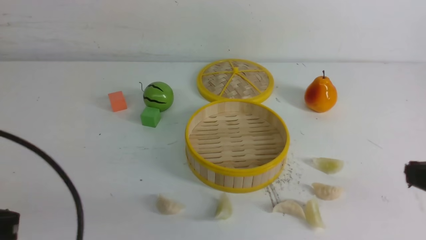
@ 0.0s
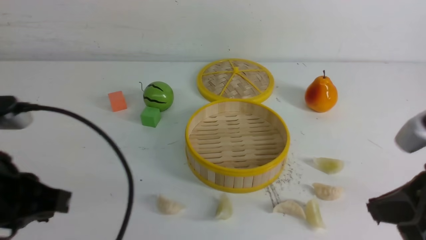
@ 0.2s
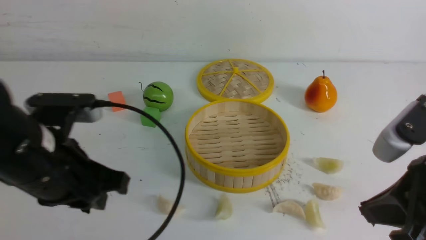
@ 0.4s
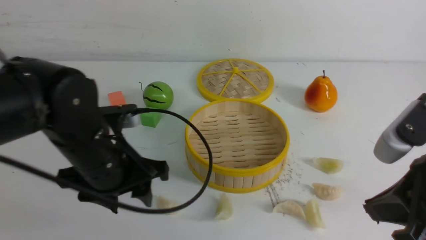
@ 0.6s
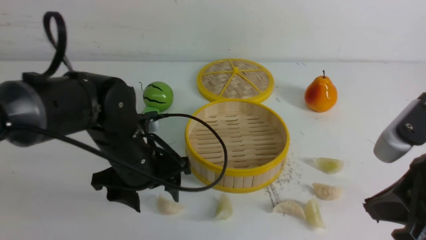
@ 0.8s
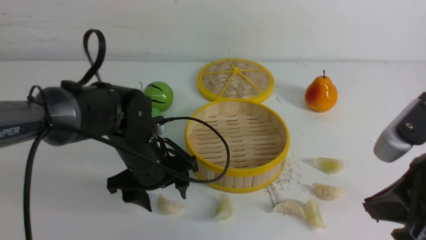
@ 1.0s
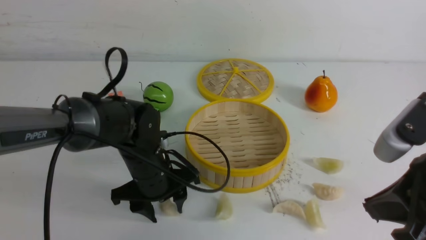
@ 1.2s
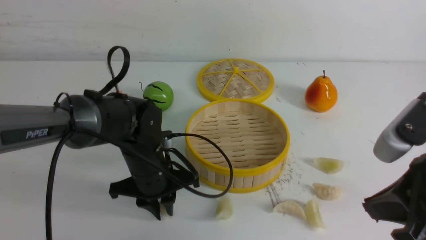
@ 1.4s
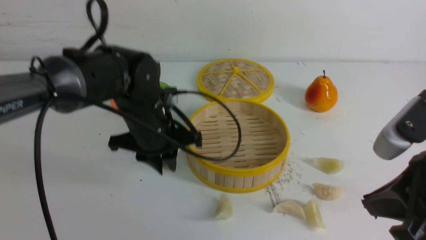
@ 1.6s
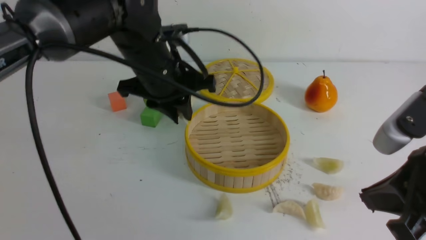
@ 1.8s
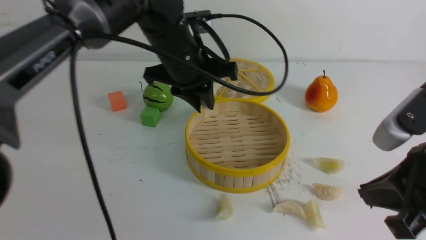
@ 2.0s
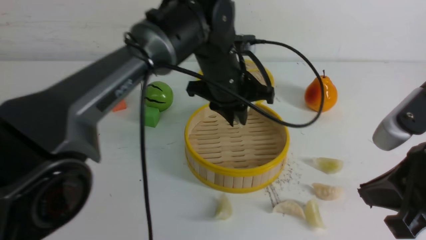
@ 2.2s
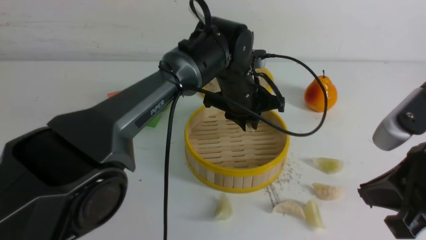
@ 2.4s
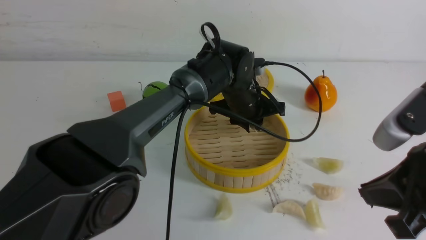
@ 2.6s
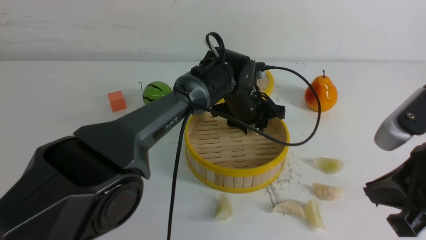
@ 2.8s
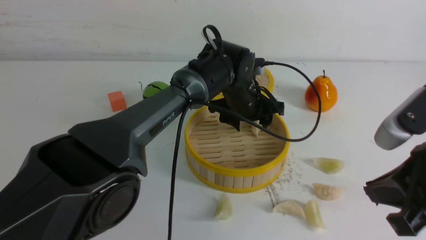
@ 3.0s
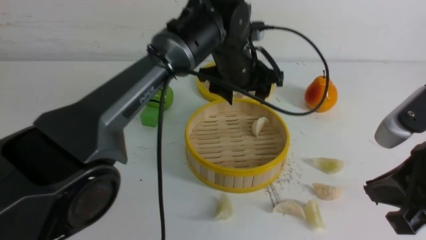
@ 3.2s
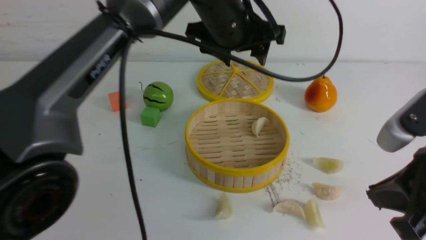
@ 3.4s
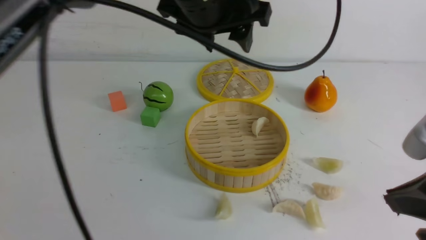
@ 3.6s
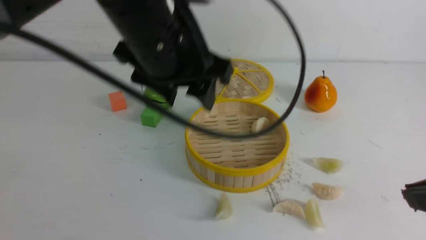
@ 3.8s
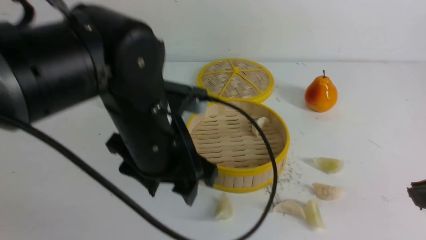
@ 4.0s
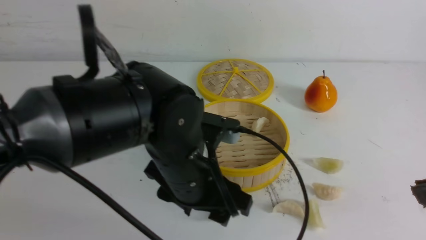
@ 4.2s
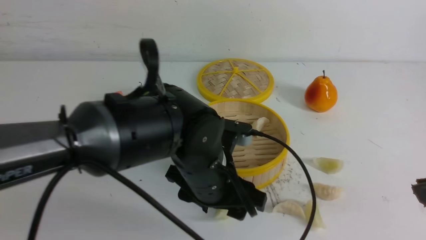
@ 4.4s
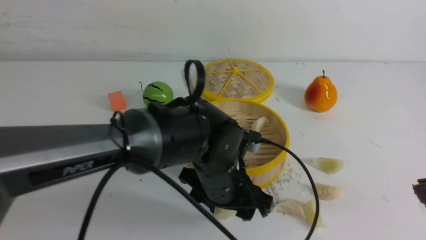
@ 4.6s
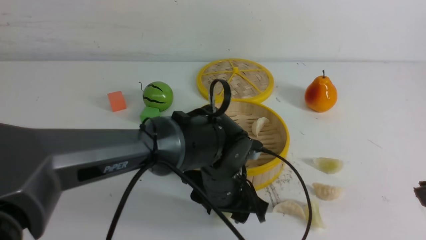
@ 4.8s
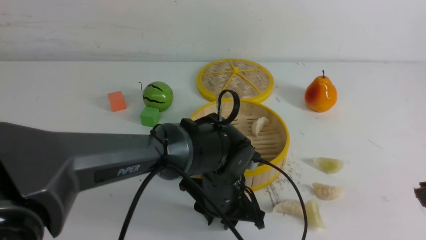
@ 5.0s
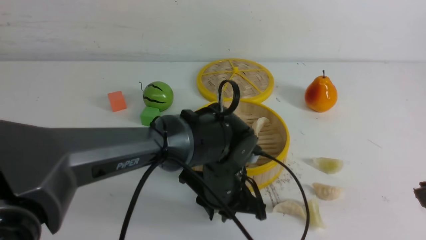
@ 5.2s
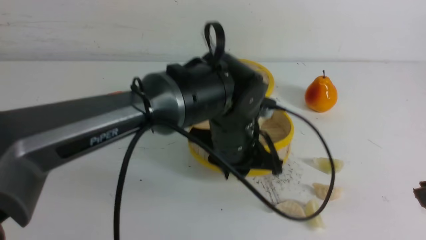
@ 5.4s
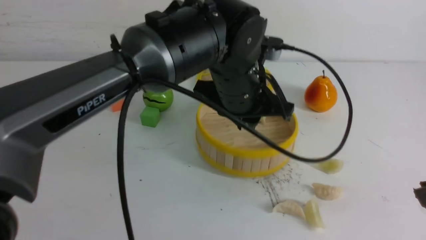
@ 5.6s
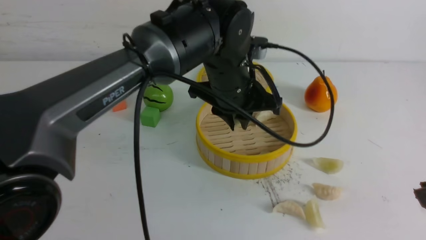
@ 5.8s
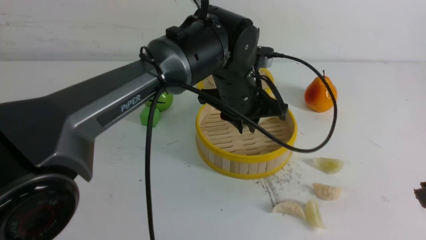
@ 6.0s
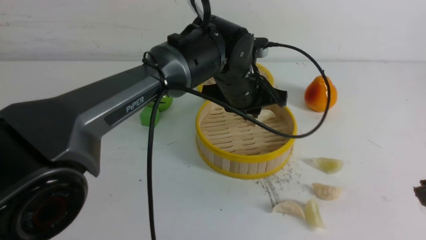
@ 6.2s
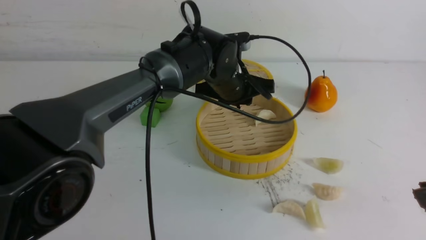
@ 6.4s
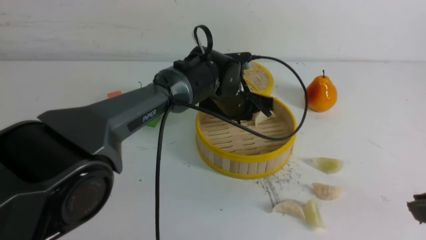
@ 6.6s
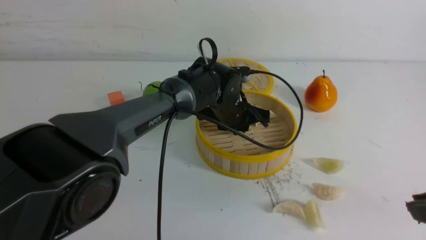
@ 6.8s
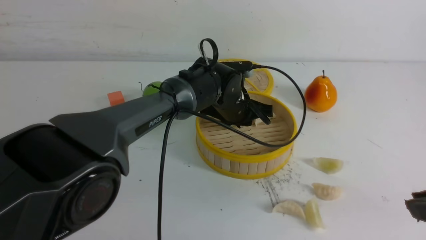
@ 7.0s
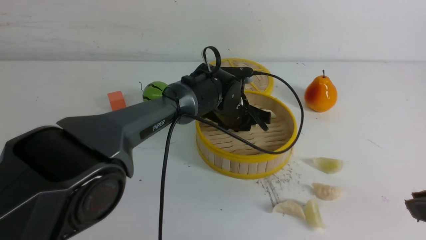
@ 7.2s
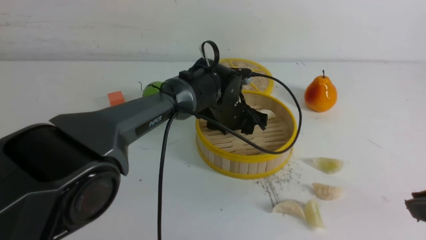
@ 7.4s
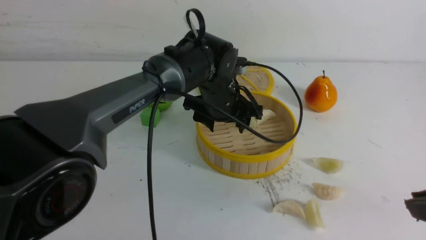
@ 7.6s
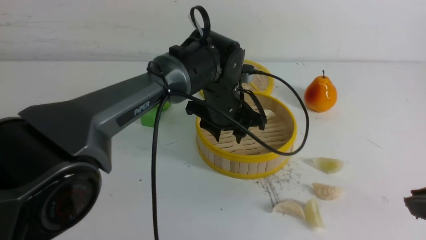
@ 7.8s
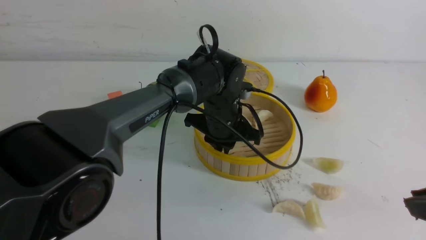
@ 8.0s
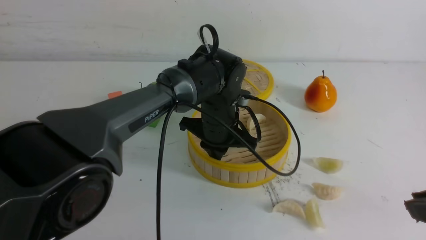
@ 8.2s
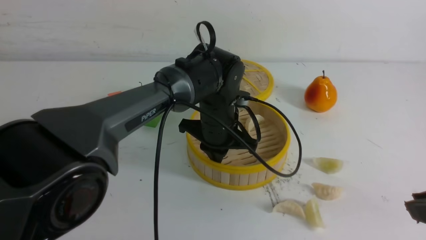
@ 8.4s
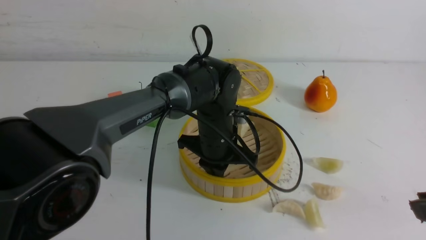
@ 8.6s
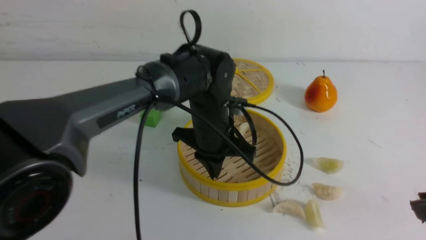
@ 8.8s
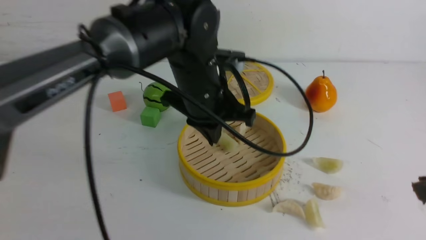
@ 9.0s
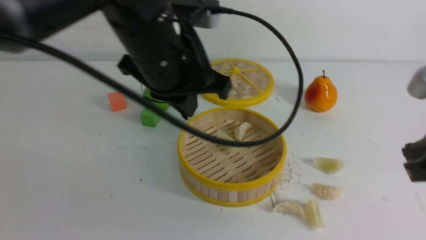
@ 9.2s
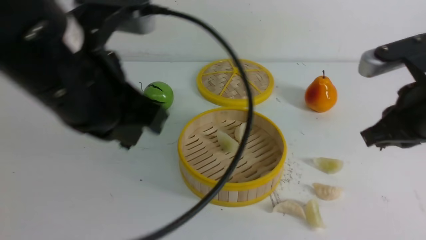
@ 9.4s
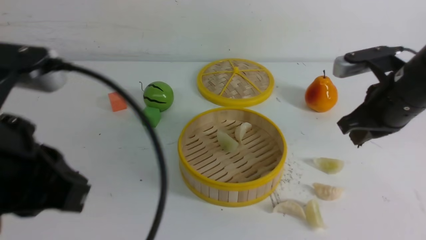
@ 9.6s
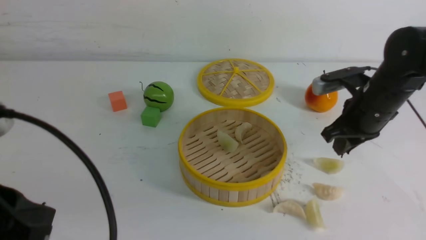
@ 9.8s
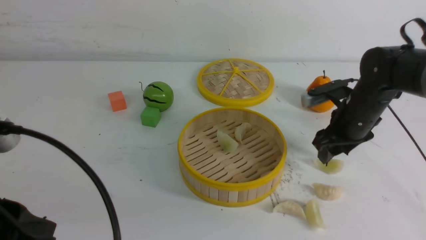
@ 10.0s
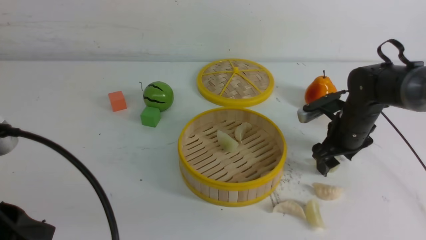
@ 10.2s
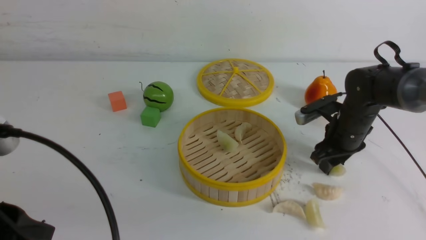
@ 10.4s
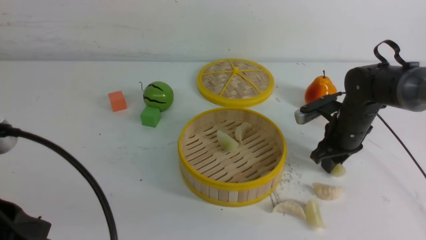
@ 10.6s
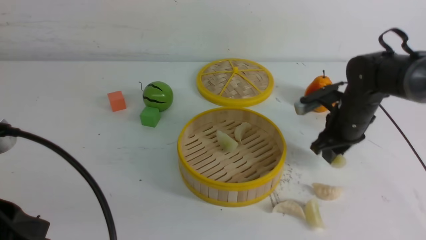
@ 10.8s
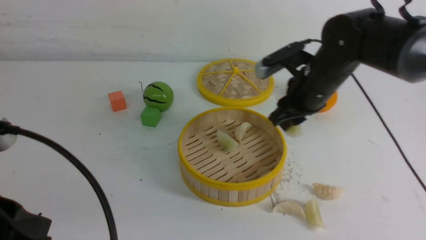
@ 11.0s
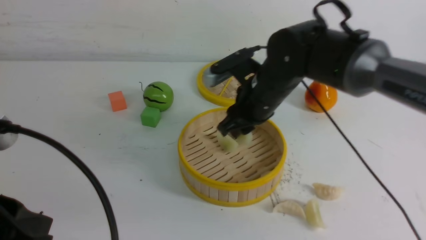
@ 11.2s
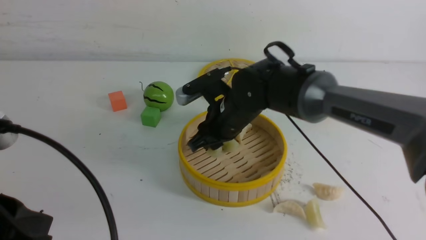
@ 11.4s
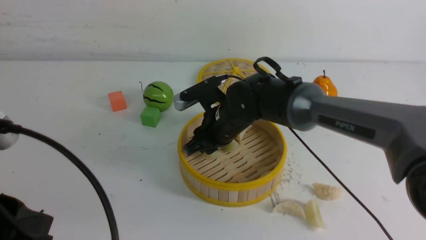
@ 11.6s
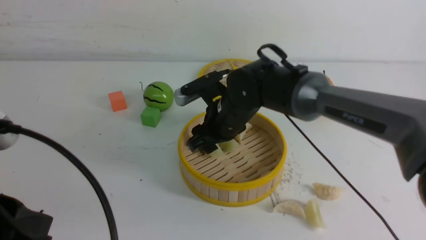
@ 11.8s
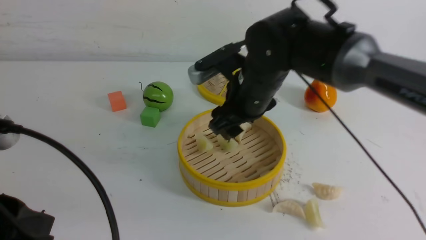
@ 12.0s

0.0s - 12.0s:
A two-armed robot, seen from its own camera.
Task of the whole recording: put the dumplings into the steamer on the white table.
Step, 1.6s - 2.8s: use the left arm to put the dumpling into the steamer.
Step, 3.0s - 5.0s: use the left arm to grab a dumpling.
Step, 5.2s - 7.4s: use the left arm to put the dumpling into the steamer.
Step, 7.8s - 10.6s: use the right arm to grab a dumpling.
Step, 10.8s - 11.8s: use the right arm to put the dumpling into the steamer.
0.0s - 1.6s: The left gripper shifts roughly 30 cm forward and to the right, and opens, then closes again.
1.6s - 3.0s: The left gripper shifts about 15 cm to the right and forward, and opens up.
3.0s - 4.4s: The left gripper heads backward, covering about 20 cm. The right gripper changes place by roughly 5 cm.
4.4s - 6.0s: The left gripper travels forward and upward by some 15 cm, and closes its fingers.
6.0s - 7.6s: The left gripper moves downward, some 5 cm, and opens up.
7.6s - 9.0s: The left gripper moves upward and backward, roughly 15 cm, and closes its fingers.
9.0s - 10.4s: The right gripper travels forward and downward by roughly 35 cm, and opens. Meanwhile the left gripper goes about 30 cm backward and to the left.
10.4s - 12.0s: The right gripper moves to the left and upward, some 20 cm.

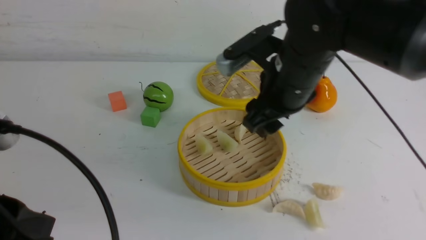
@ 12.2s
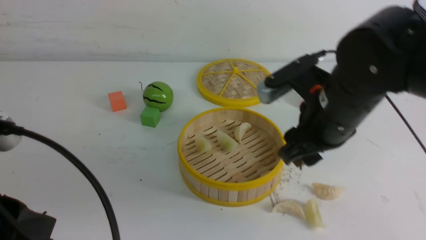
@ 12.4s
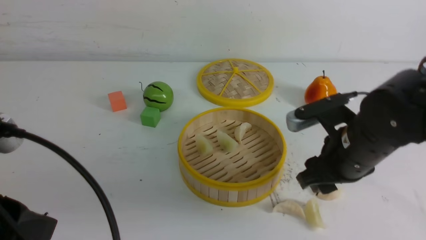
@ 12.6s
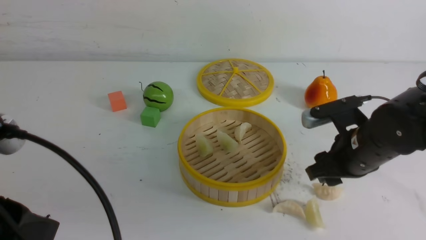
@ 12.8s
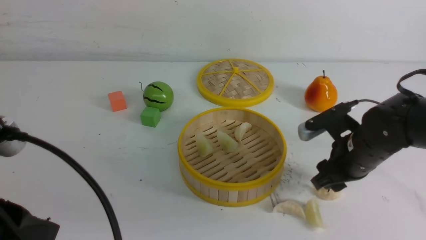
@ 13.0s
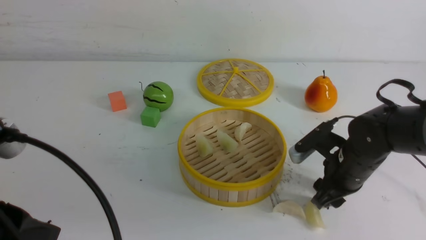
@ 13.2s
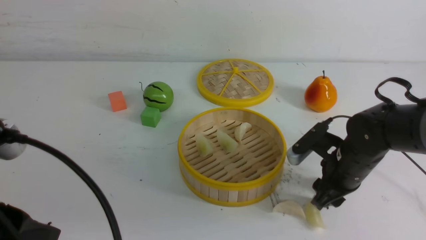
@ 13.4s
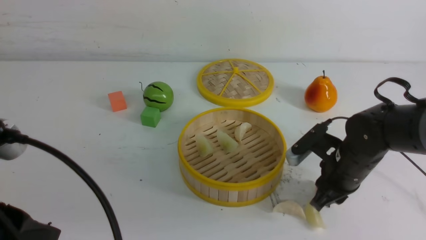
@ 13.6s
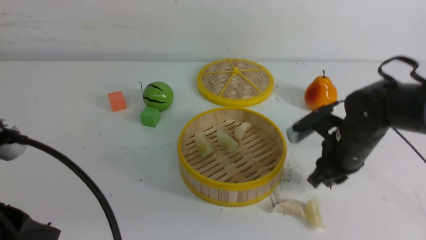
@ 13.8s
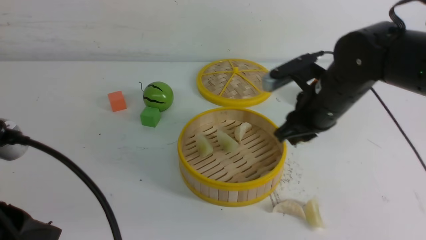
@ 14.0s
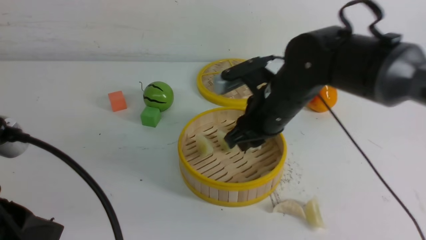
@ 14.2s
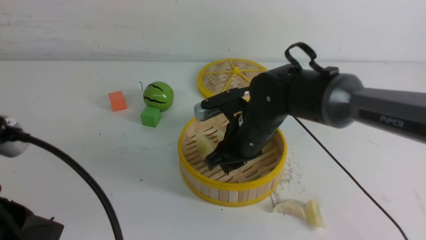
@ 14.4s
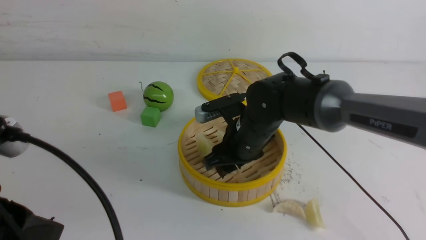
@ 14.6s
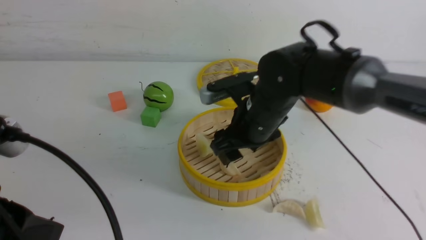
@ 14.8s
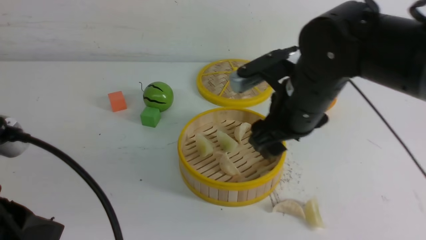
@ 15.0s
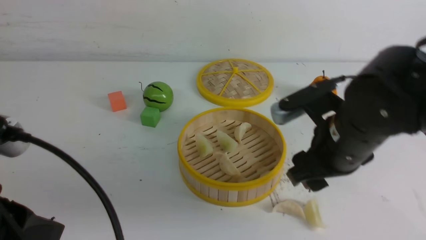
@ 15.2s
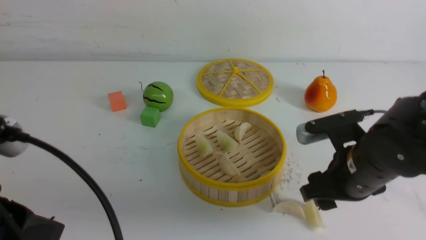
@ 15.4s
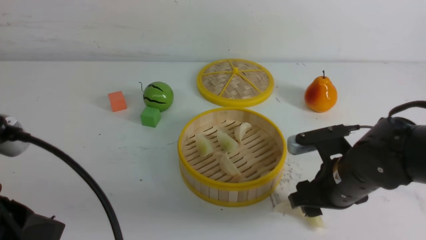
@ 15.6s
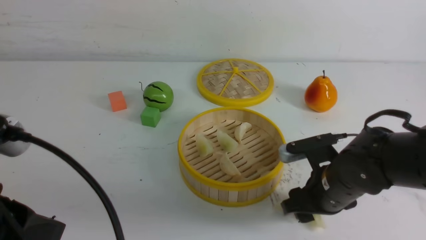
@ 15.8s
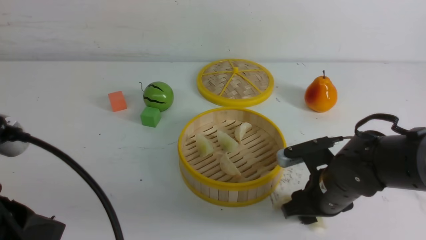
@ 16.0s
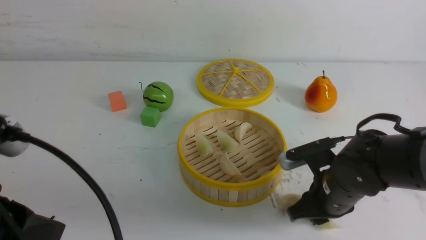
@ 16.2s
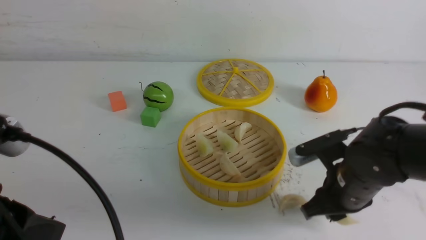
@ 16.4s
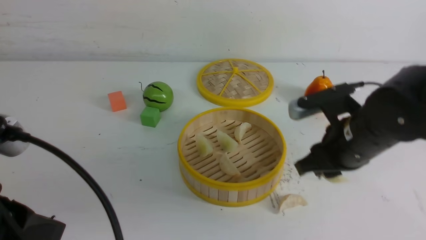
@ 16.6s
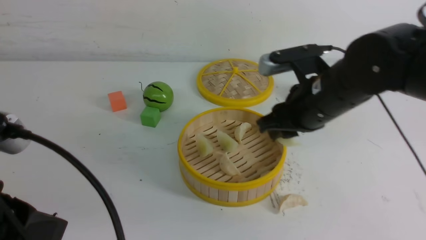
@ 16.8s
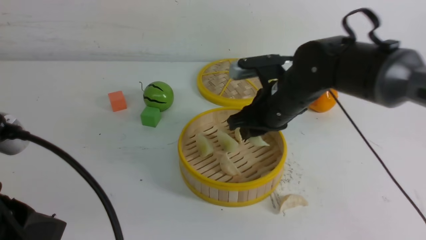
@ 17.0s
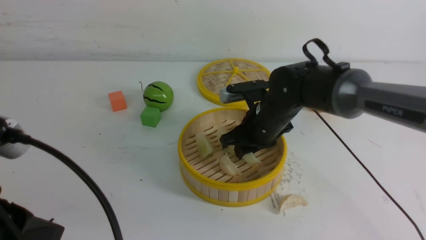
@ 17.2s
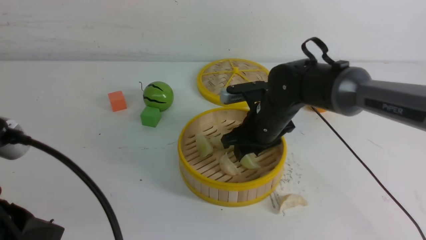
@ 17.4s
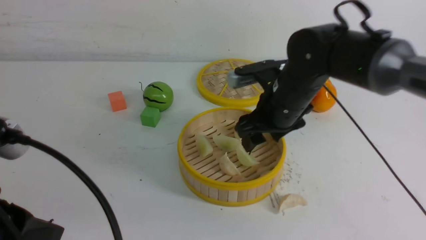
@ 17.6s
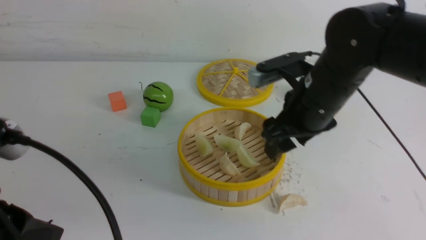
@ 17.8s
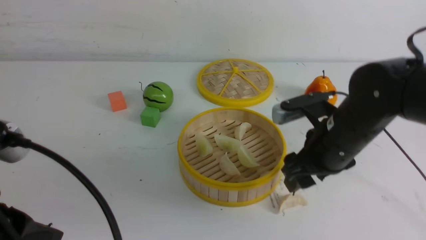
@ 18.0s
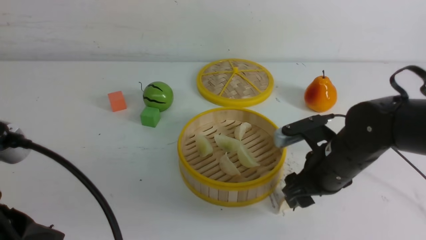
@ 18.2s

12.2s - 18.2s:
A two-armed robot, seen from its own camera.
Task of the whole recording: put the dumplings into the steamer on the white table.
Step, 12.2s - 13.4s: use the right arm to grab a dumpling.
Step, 13.6s - 14.6s: use the right arm to put the dumpling into the steamer.
Step, 14.8s - 16.2s: use the right arm to grab a dumpling.
Step, 16.6s - 17.4s: use the right arm to put the dumpling into the steamer.
12.2s - 13.8s: The right gripper moves downward and to the right, about 15 cm, and closes.
13.8s - 15.2s: The right gripper heads backward and upward, covering some 10 cm, reaches some 15 cm to the left, then returns, and opens its fingers.
15.2s - 16.6s: The right gripper moves about 10 cm downward and comes back, and closes its fingers.
16.6s - 18.2s: The right gripper heads downward, covering roughly 5 cm, travels forward and back again, roughly 10 cm each way, and opens.
